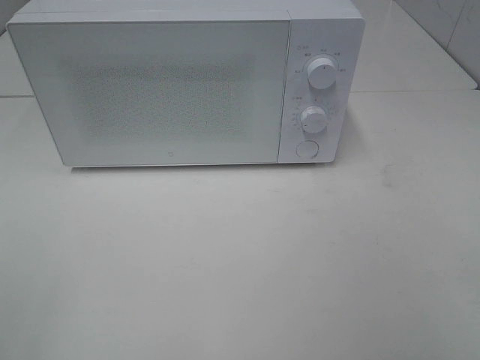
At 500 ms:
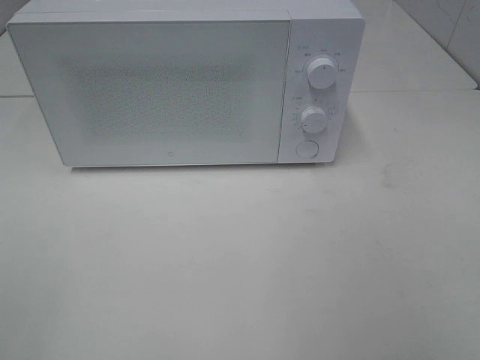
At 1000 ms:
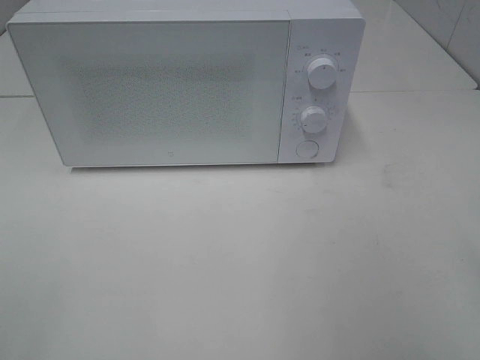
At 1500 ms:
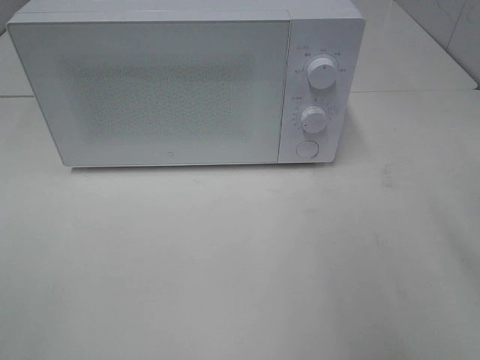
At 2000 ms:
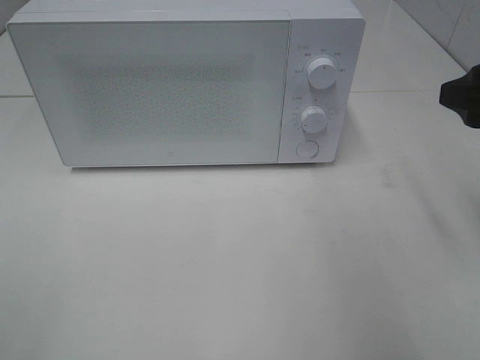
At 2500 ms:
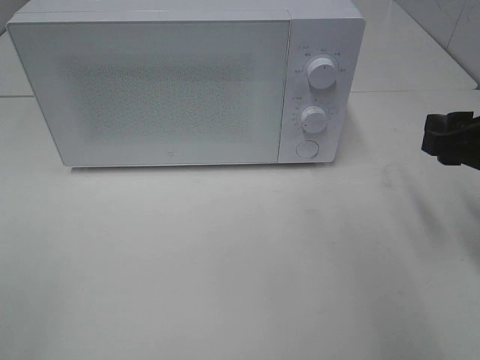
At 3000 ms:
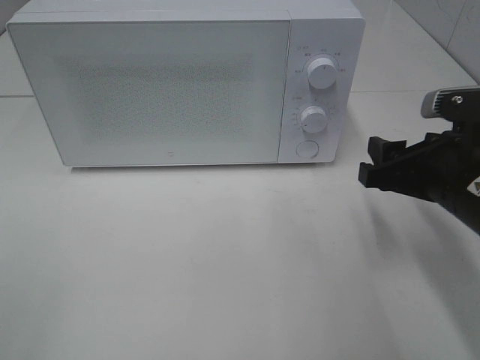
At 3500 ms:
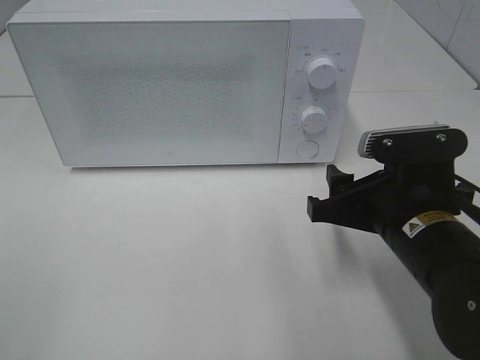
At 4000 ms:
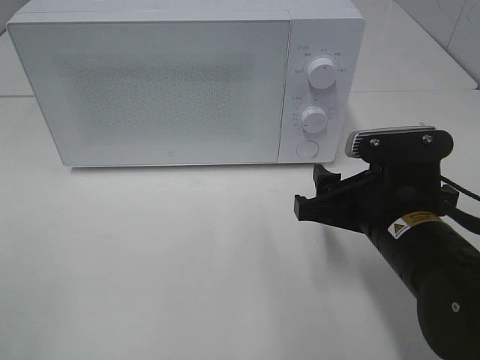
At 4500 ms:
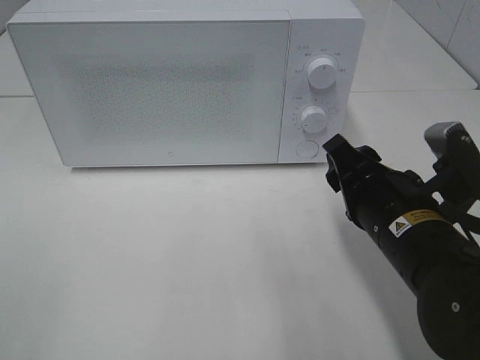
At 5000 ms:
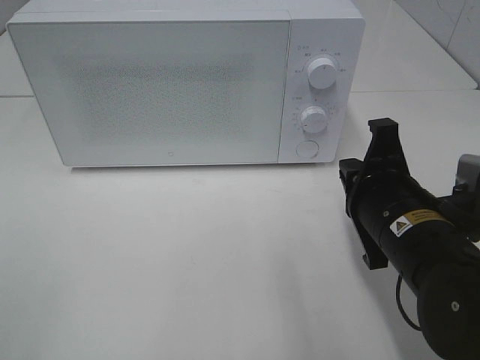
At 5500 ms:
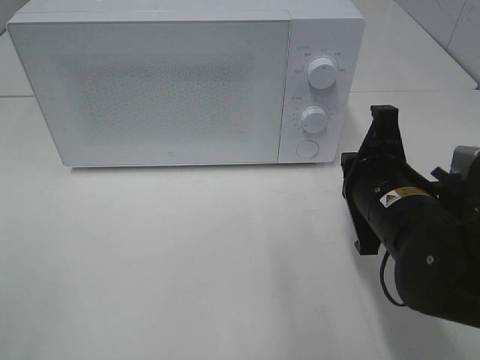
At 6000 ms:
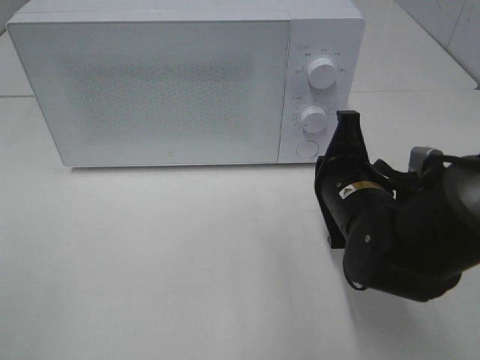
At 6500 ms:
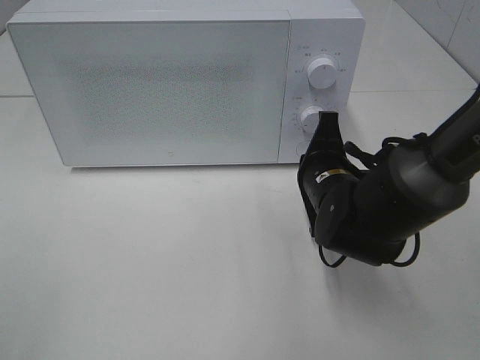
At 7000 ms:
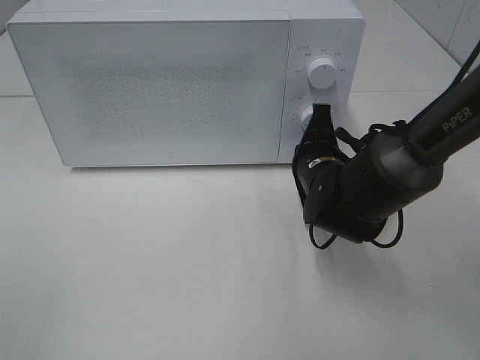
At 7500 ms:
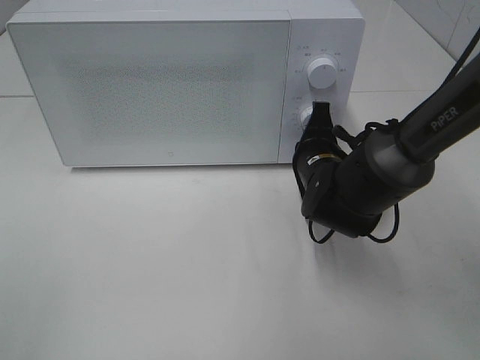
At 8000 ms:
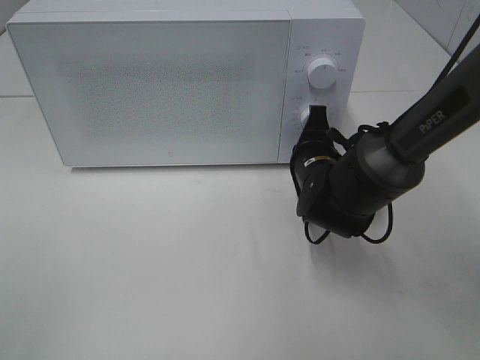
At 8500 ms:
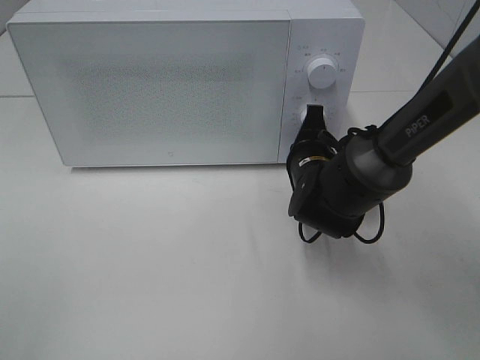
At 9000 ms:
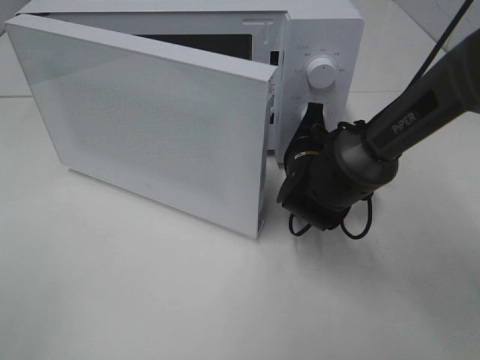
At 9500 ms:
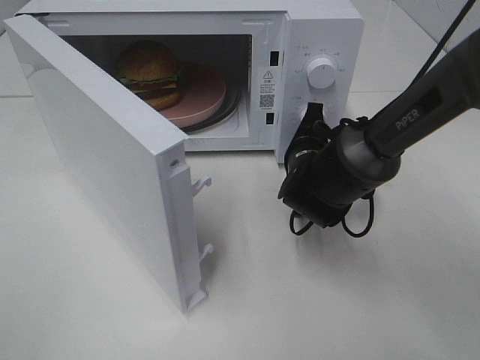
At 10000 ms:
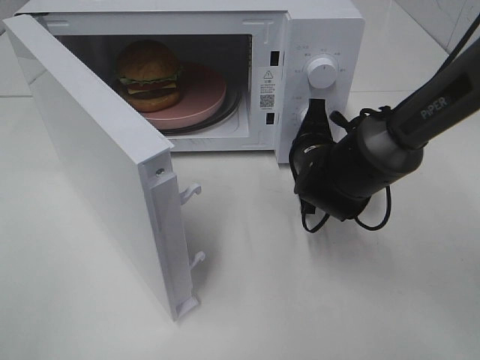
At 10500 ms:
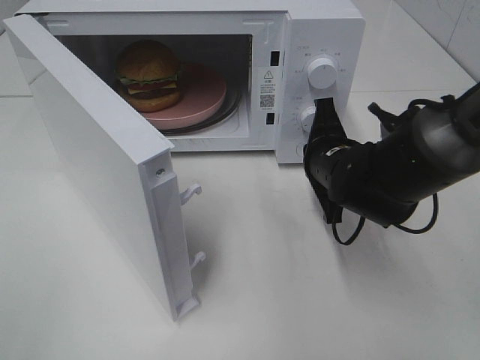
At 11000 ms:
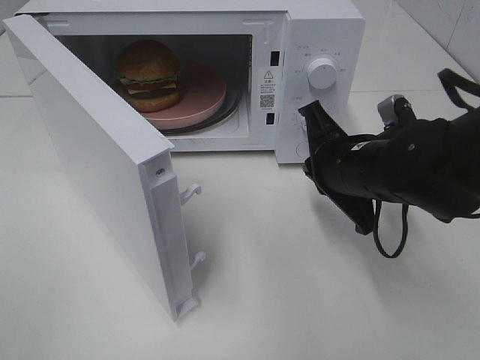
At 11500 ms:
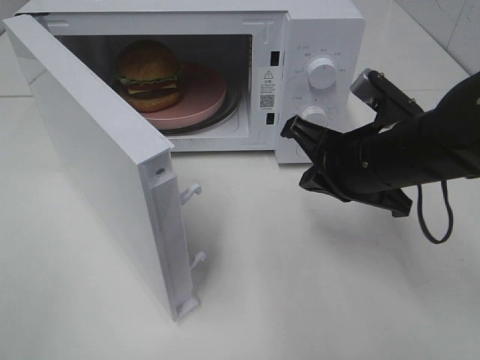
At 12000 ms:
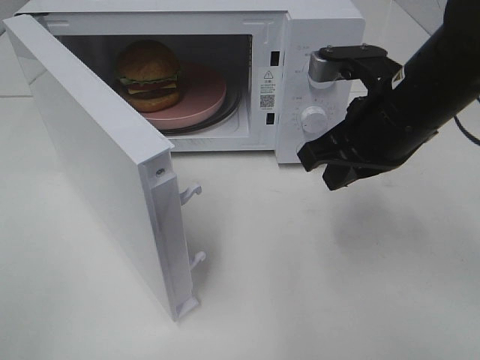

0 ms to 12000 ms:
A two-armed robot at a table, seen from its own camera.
Task of the whole recording: Heat the burger.
Step, 0 ms to 10000 ms: Right hand: press the switch.
0 ms to 2000 ms: The right gripper travels forward by about 20 cm.
2000 ms to 4000 ms: The right gripper moves downward and to the left, about 15 cm.
4000 ms to 6000 ms: The right gripper goes some 5 cm forward, and closes up.
6000 ms to 8000 ms: The right gripper is displaced forward by approximately 10 cm.
10000 ms to 12000 ms: The right gripper moves upward and backward, some 15 cm.

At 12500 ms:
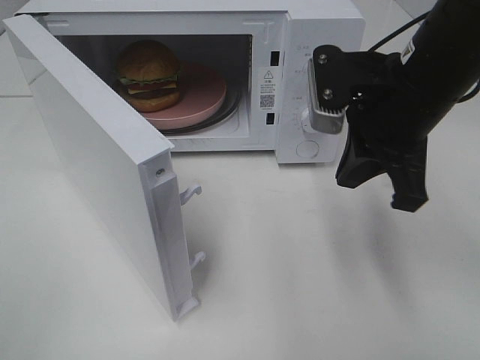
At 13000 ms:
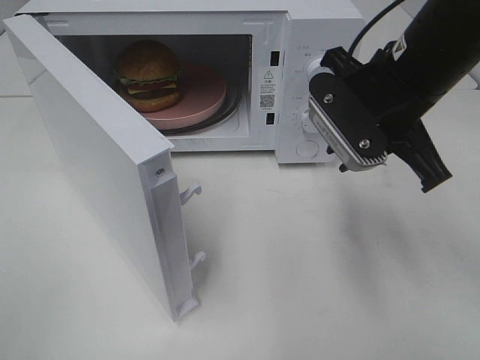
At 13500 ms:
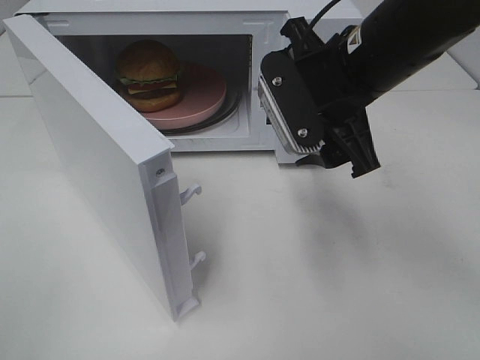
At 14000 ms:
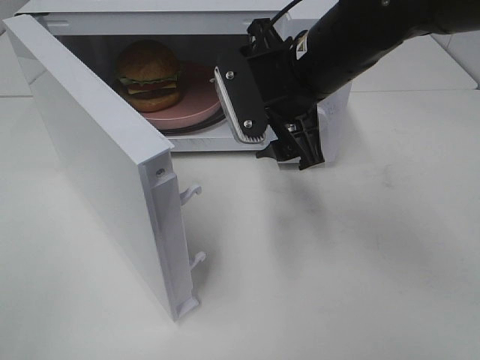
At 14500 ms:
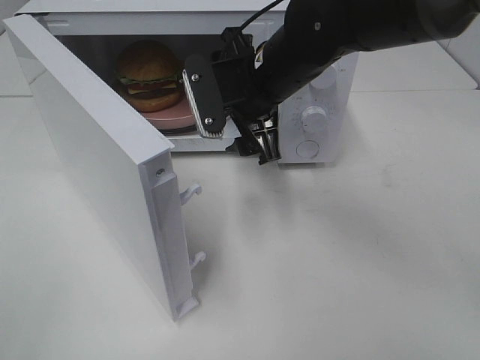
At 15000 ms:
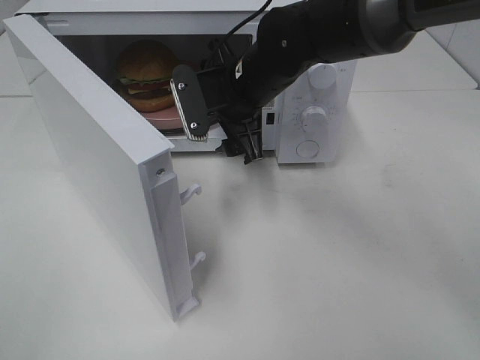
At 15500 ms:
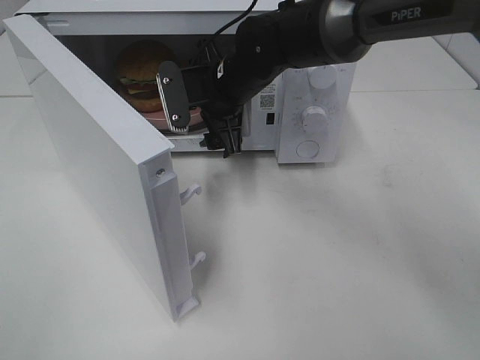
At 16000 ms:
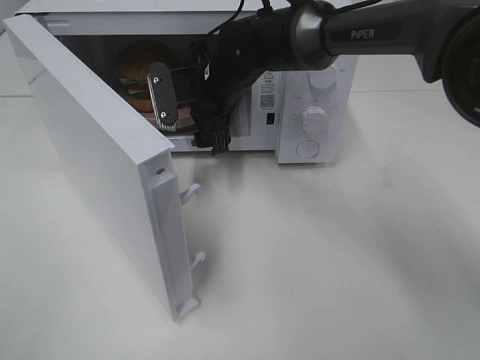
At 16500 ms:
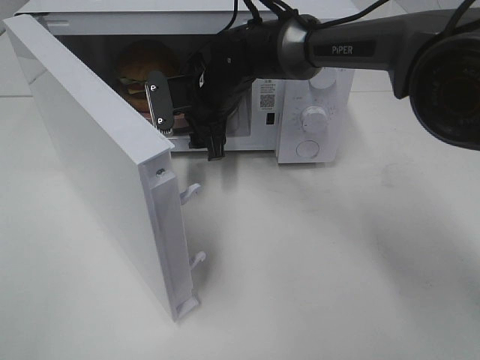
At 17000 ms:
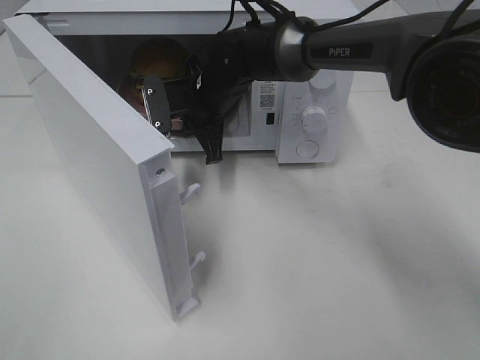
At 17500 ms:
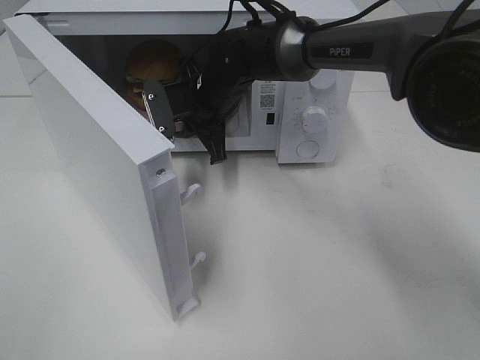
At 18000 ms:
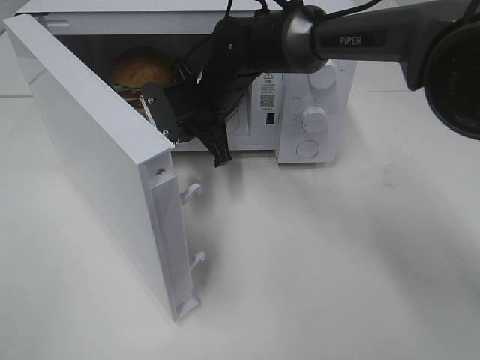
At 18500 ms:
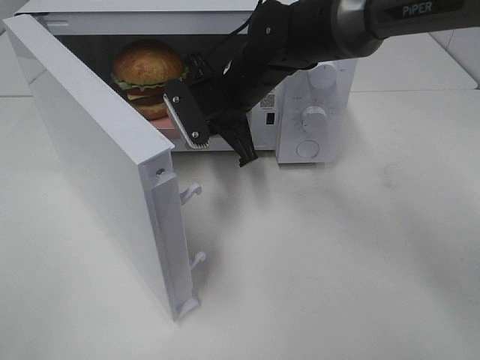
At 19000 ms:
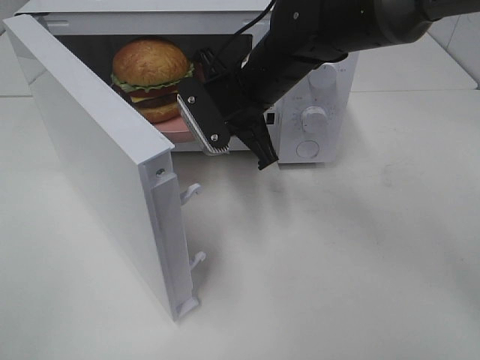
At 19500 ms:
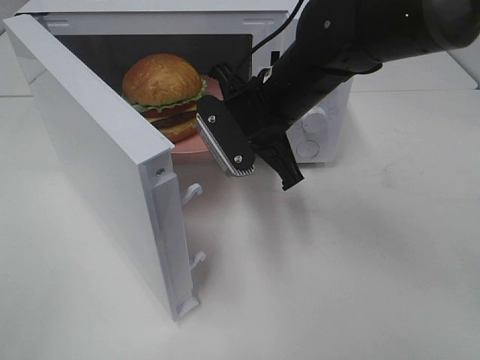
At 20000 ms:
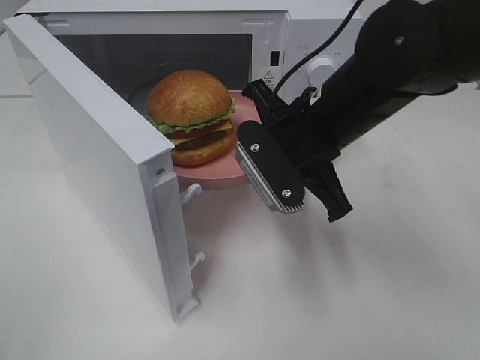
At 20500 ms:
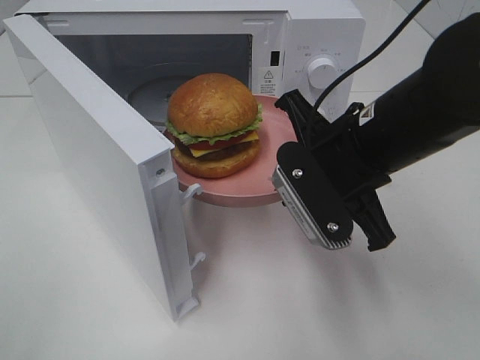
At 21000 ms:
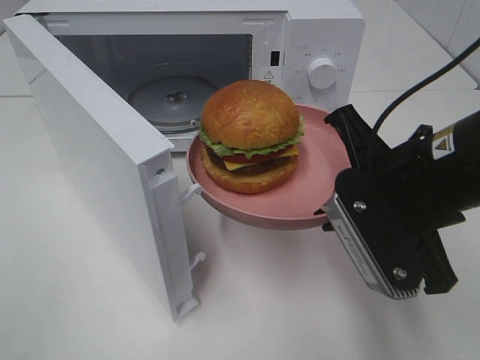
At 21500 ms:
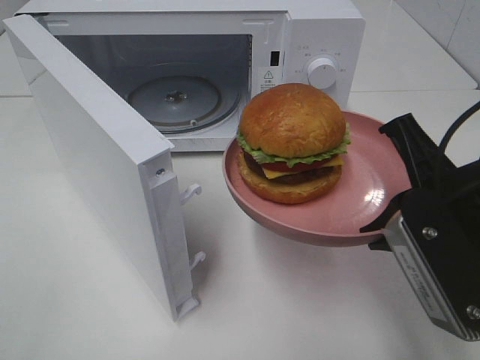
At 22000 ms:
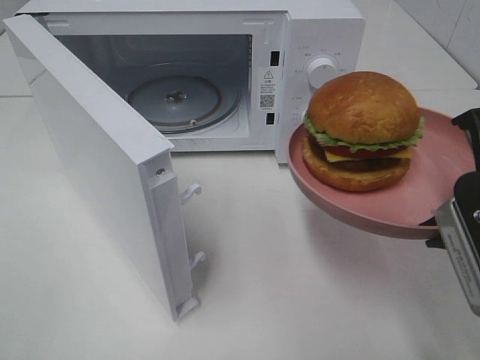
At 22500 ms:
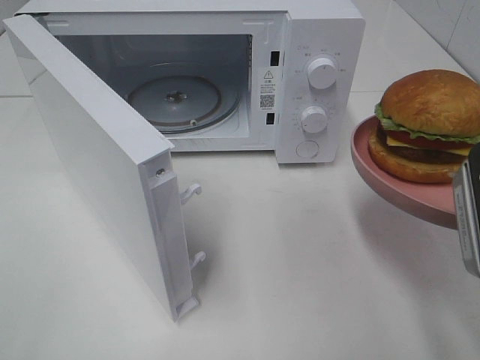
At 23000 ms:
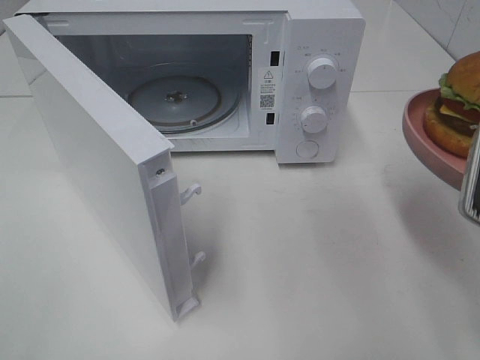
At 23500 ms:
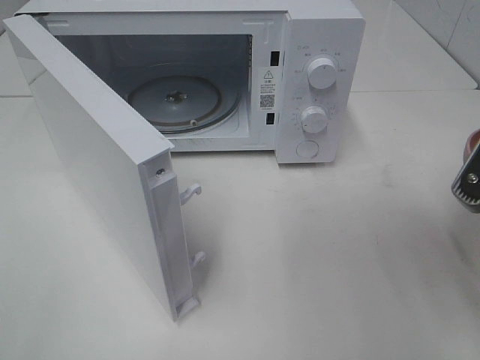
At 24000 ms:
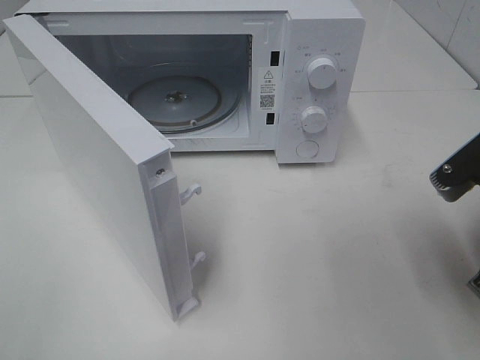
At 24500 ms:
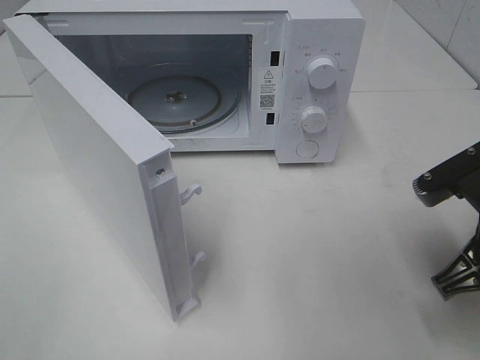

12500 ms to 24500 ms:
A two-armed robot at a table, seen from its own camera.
Task of the whole recording: Heat the burger.
Step, 12500 ms to 16500 ms: Right hand: grab the plate with the hamburger.
12500 ms to 14500 ms: The right gripper moves to the left and forward, approximately 15 cm, and opens up.
14500 ms to 16500 ms: The right gripper travels forward, downward and to the left by approximately 10 cm.
16500 ms to 18500 ms: The right gripper moves some 5 cm, and closes up.
18500 ms to 20500 ms: The right gripper heads backward and to the right, covering about 20 cm.
20500 ms to 22500 ms: The right gripper is displaced to the right and backward by some 15 cm.
22500 ms to 24500 ms: The right gripper is displaced downward by some 10 cm.

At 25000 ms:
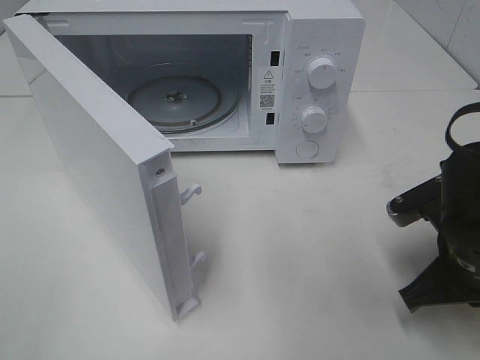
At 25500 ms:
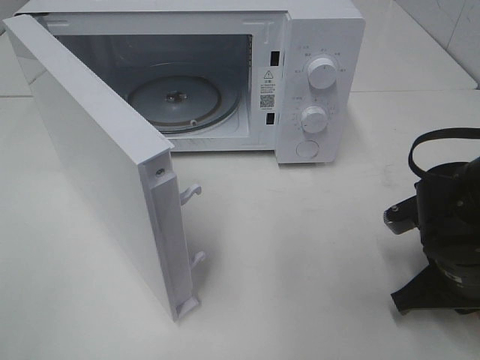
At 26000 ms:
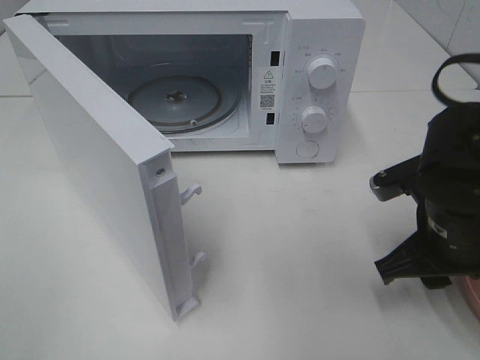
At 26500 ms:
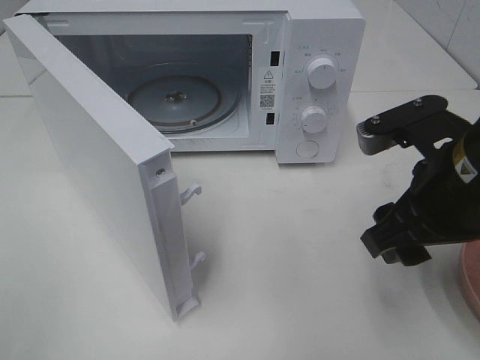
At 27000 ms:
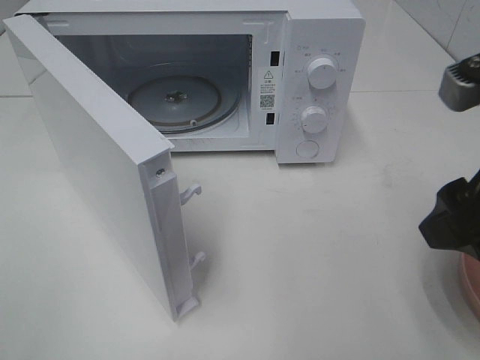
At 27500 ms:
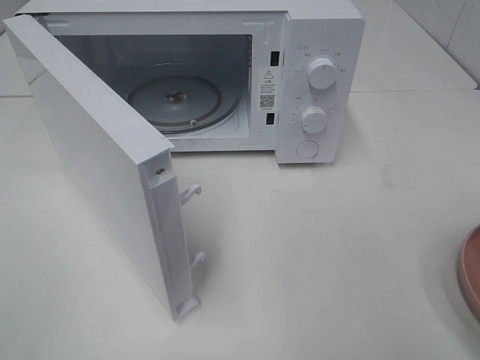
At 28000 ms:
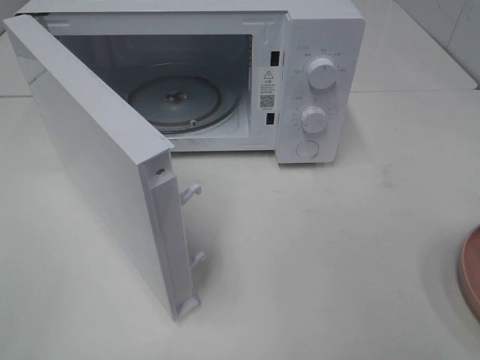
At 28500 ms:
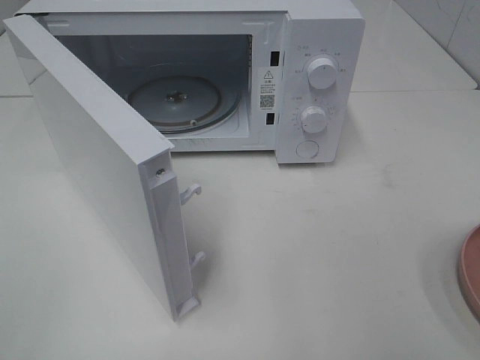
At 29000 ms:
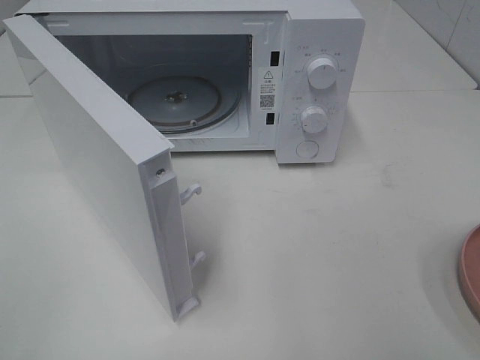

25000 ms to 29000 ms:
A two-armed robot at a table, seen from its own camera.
Task of the whole recording: Heat the burger.
25000 ms to 27000 ms: The right gripper is displaced upward by some 15 cm, and opens its fingers.
27000 ms to 29000 ms: The right gripper shifts approximately 15 cm backward and to the right.
